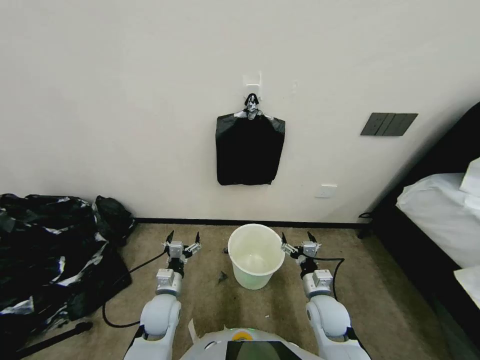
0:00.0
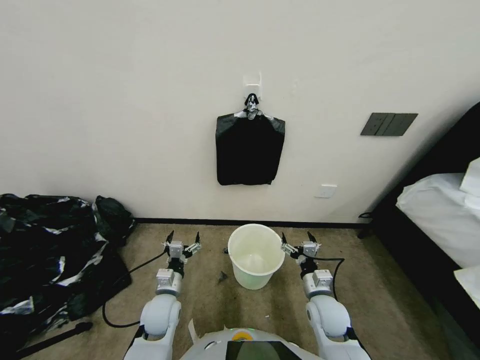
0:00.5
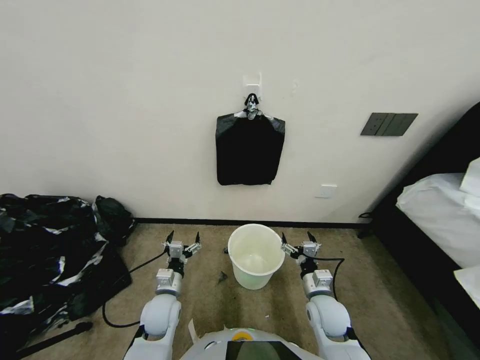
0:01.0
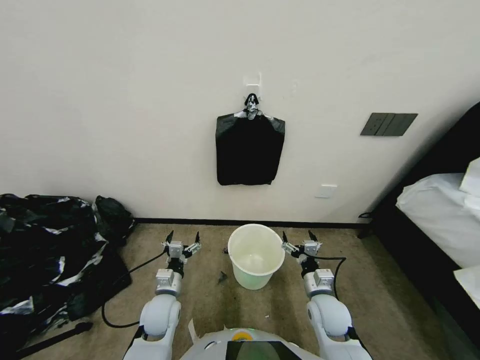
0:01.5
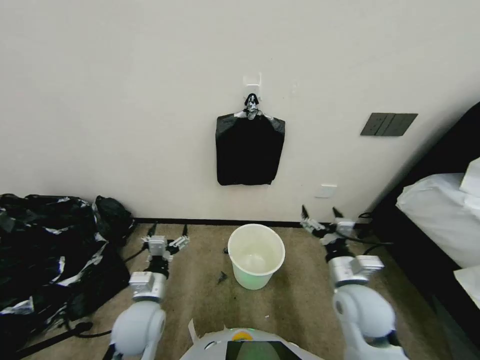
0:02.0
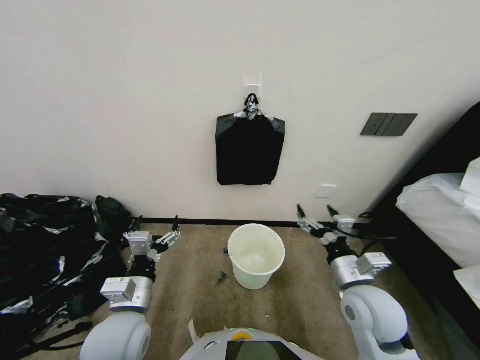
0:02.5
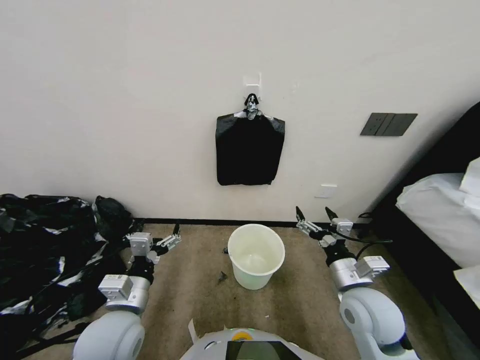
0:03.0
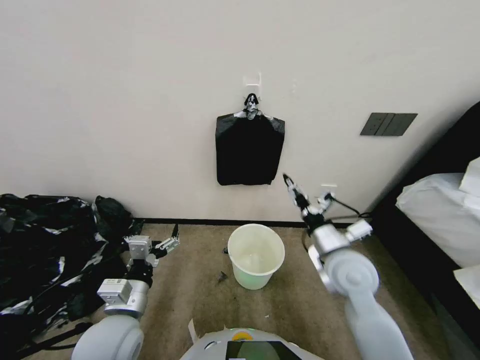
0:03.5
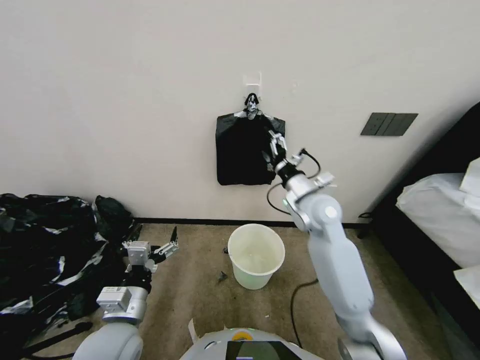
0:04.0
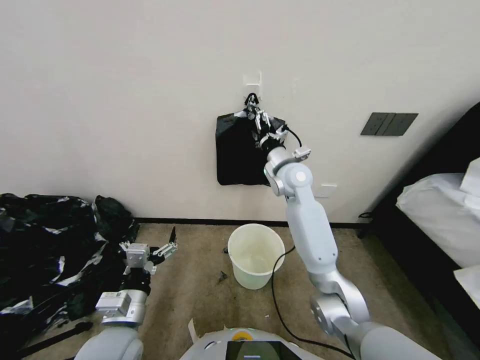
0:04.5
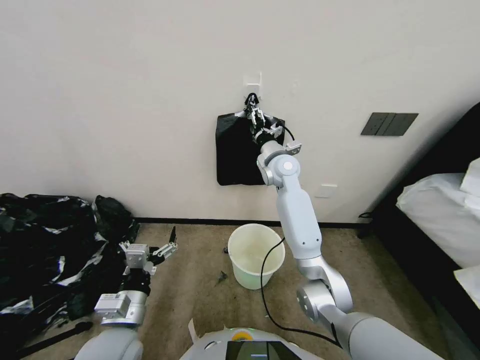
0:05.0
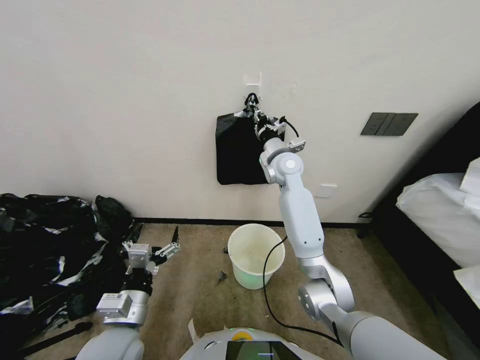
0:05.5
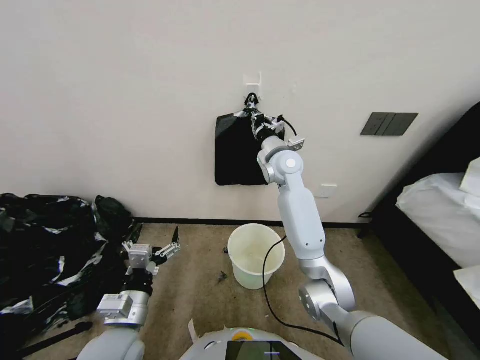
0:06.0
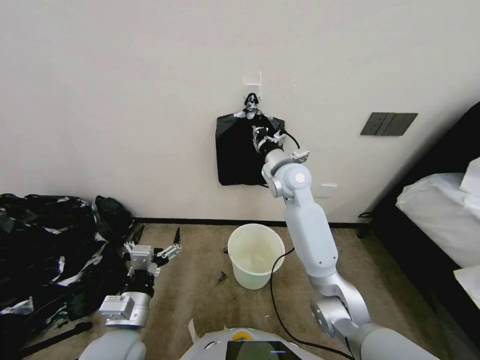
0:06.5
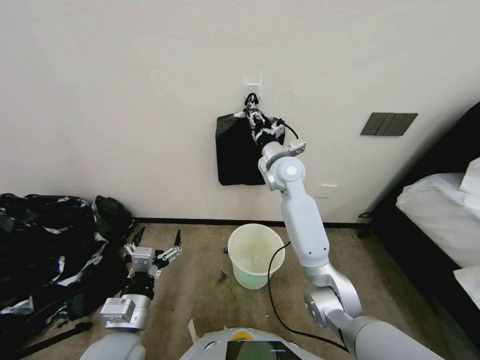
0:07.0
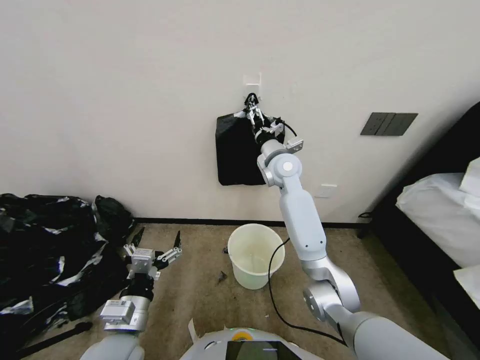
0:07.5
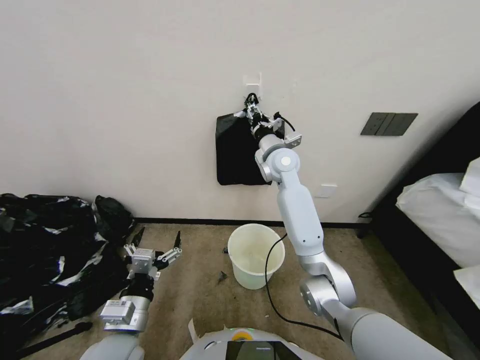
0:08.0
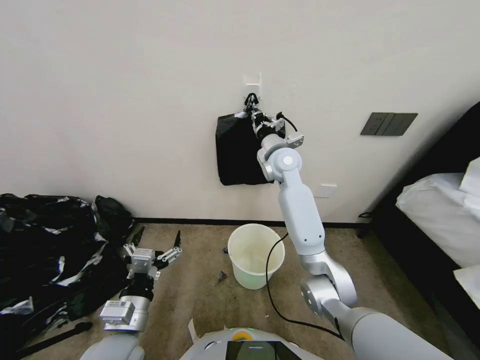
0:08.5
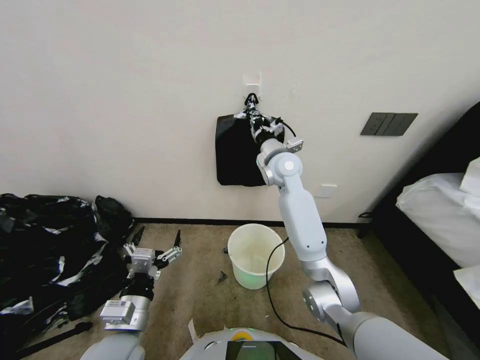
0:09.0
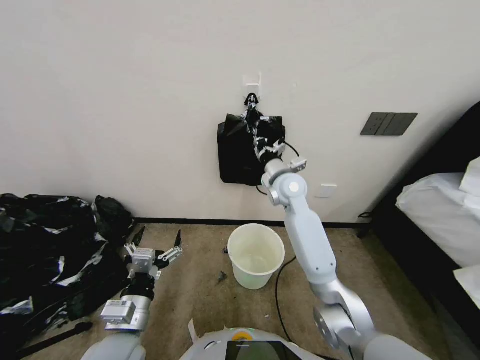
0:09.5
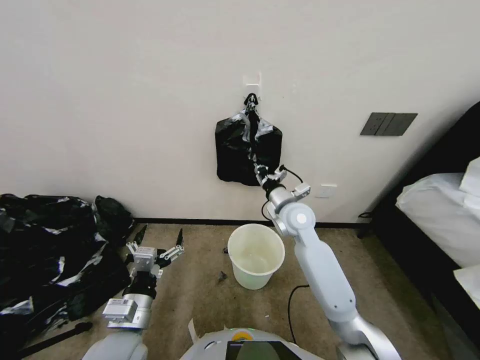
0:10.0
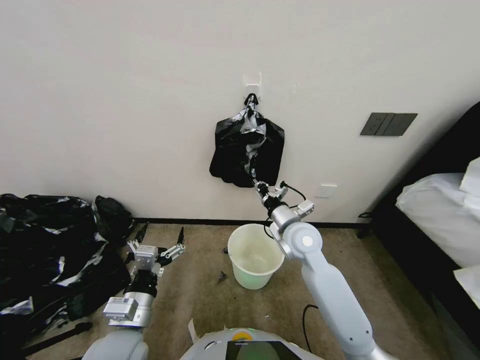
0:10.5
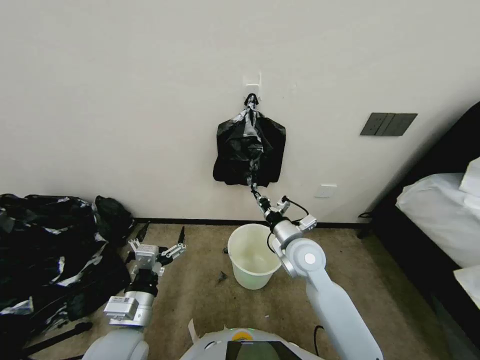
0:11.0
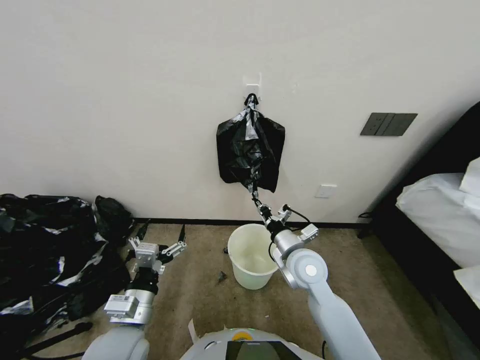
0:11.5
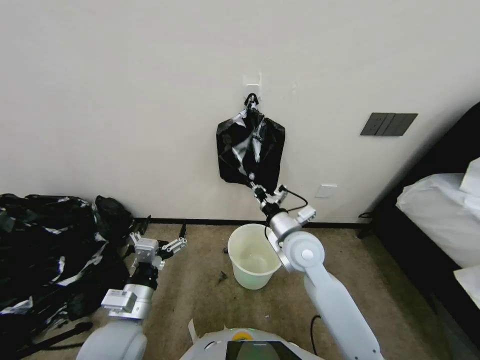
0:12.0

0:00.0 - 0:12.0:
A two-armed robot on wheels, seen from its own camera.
Task of the whole recording: Place a trash bag onto the trash bin.
0:02.0 - 0:04.0: The left gripper moves upward and backward, some 10 cm. The right gripper goes about 20 cm forward and upward.
0:04.0 - 0:06.0: The right gripper is displaced forward, to the left and upward by some 15 cm, and closes its fingers.
0:06.0 - 0:08.0: The right gripper opens up.
0:08.0 - 0:10.0: The right gripper goes about 15 cm backward and downward, and closes its fingers.
0:10.0 - 0:12.0: The right gripper travels backward by approximately 10 cm.

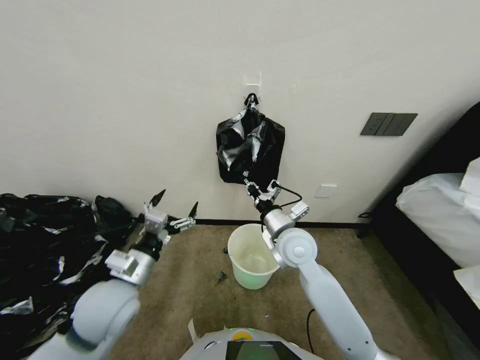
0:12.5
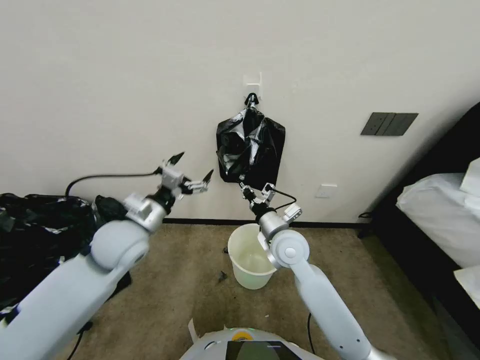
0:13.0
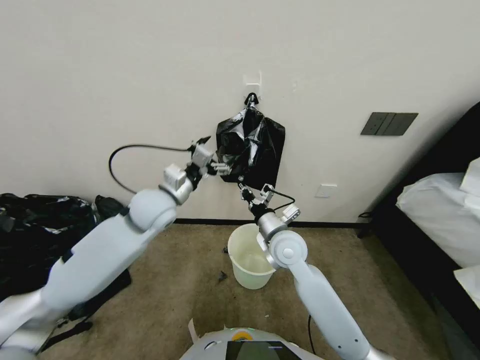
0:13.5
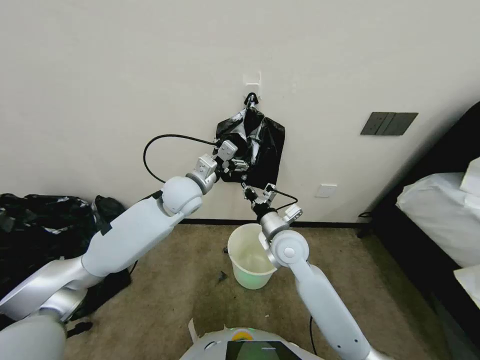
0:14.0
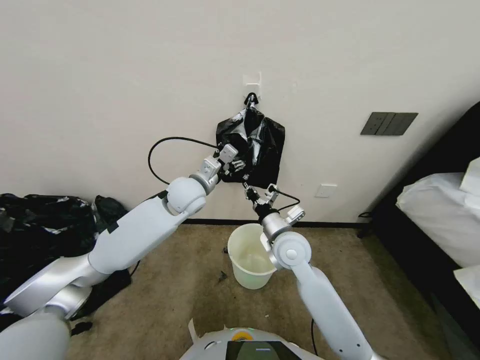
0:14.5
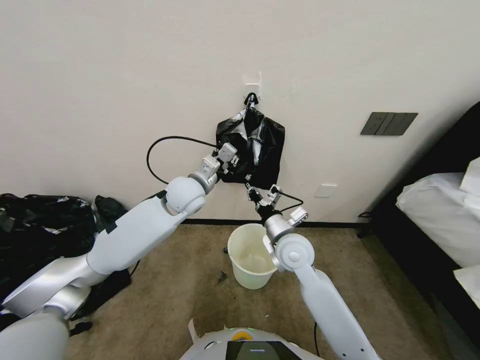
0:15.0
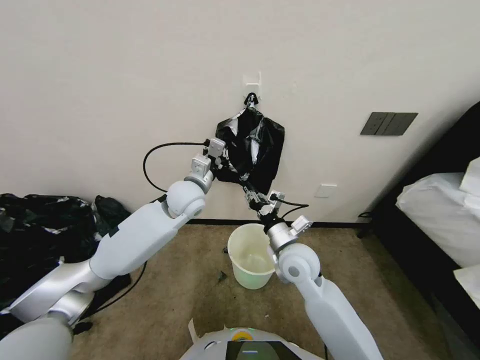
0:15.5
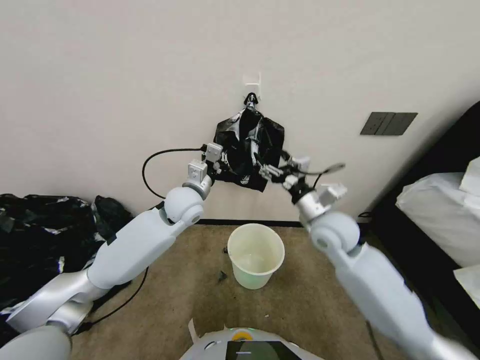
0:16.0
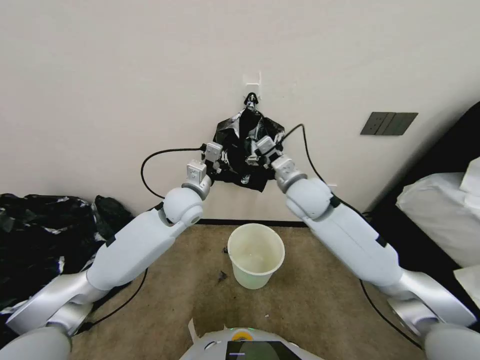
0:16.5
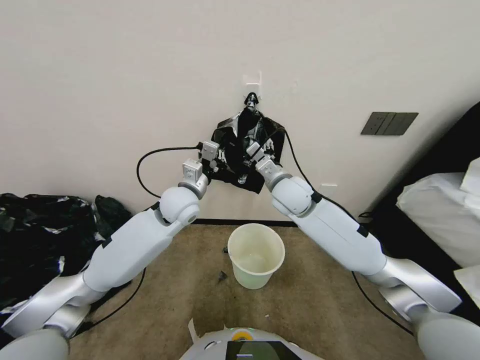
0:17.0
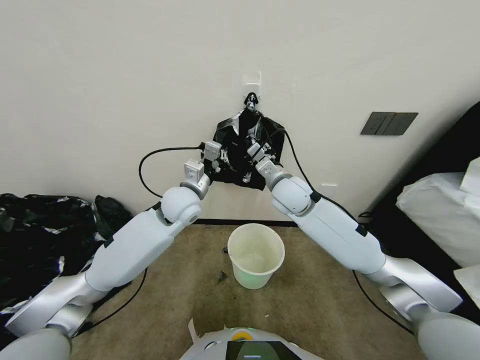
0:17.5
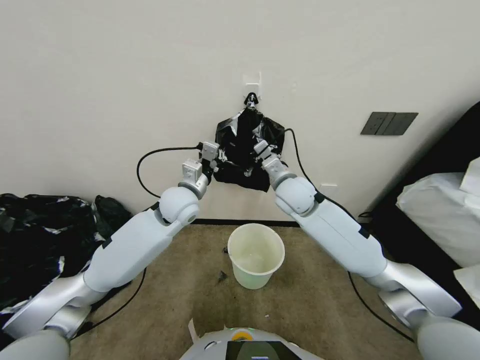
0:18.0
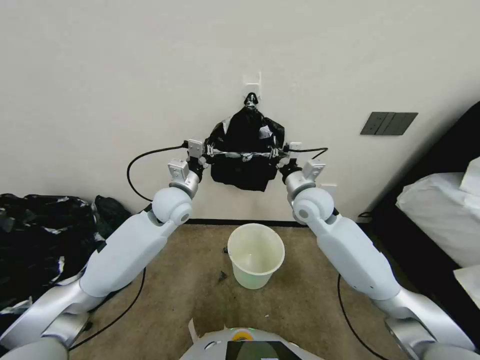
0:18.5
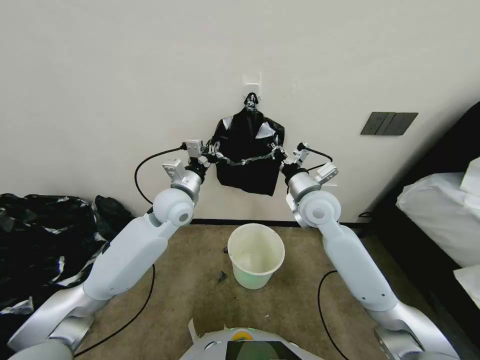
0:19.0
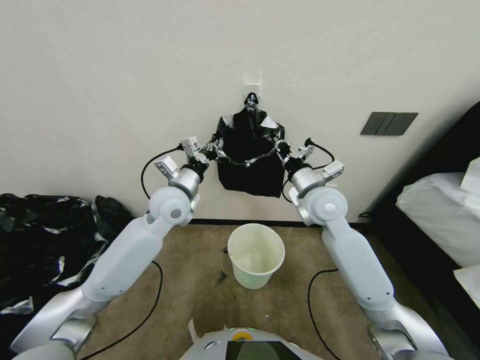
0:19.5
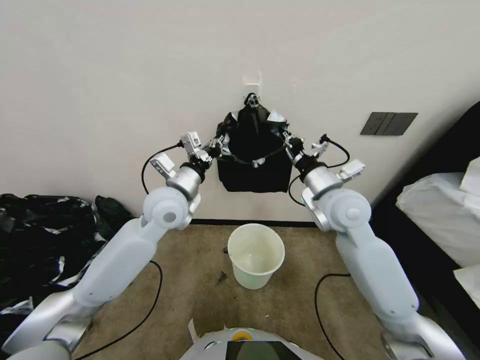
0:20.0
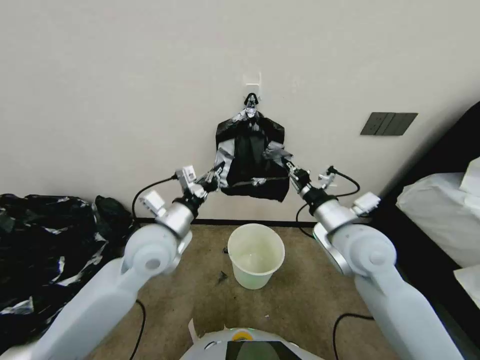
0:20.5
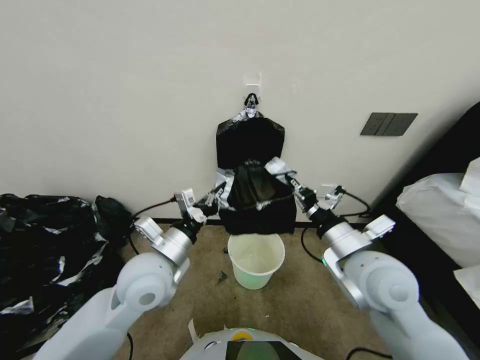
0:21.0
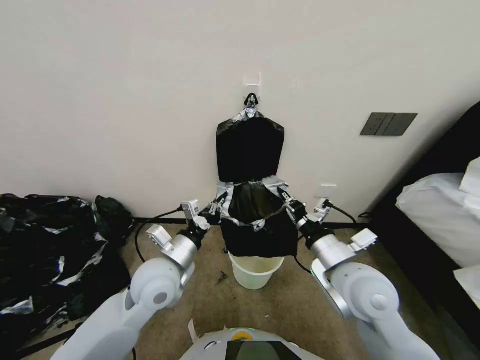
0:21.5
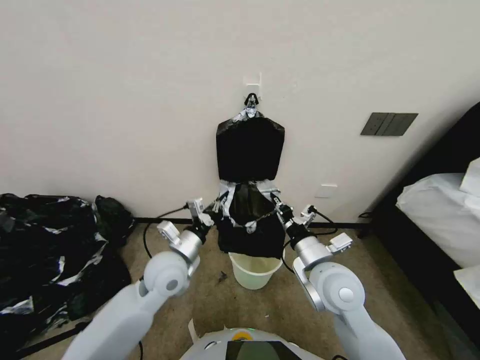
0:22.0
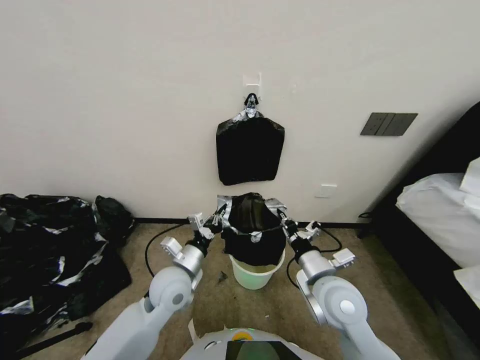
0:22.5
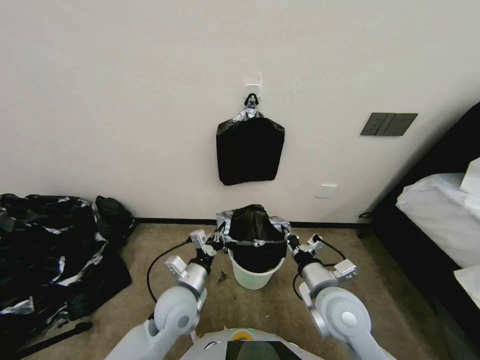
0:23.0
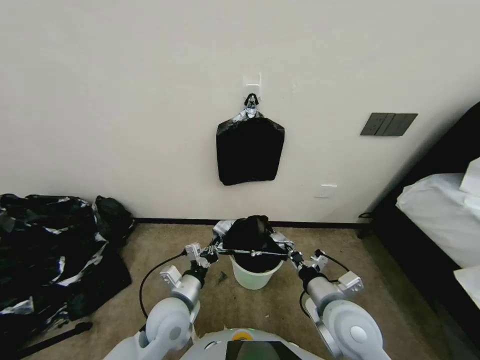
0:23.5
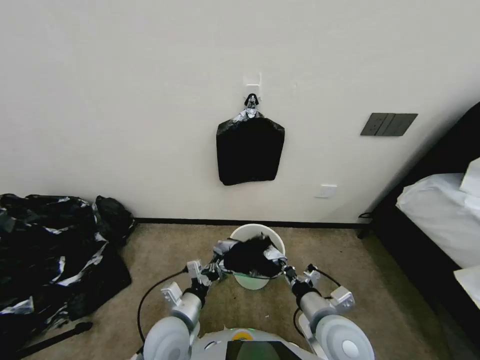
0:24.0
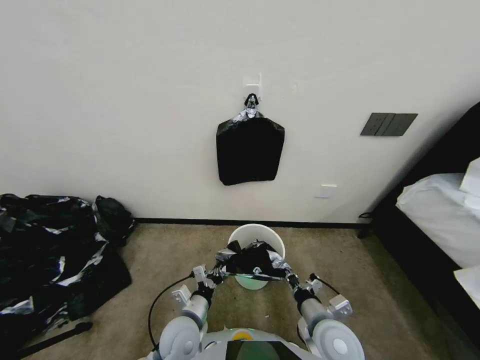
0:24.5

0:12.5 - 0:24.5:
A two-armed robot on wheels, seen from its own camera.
Task of the whole recording: Place a trash bag onto the trash bin.
0:12.5 - 0:14.5: The left gripper heads forward and to the right, covering about 25 cm.
0:14.5 - 0:16.5: The left gripper closes up. Meanwhile the right gripper is displaced upward and forward by approximately 15 cm, and opens.
0:16.5 - 0:18.5: The right gripper closes its fingers.
0:18.5 - 0:20.5: The right gripper travels backward and to the right by approximately 15 cm, while the left gripper is displaced backward by about 10 cm.
0:20.5 - 0:22.5: Both grippers travel together downward and backward, about 15 cm.
0:22.5 - 0:24.5: Both grippers travel together downward and backward, roughly 10 cm.

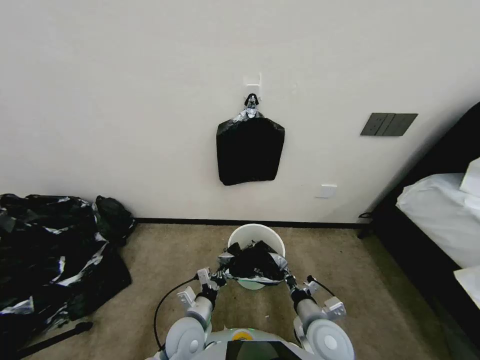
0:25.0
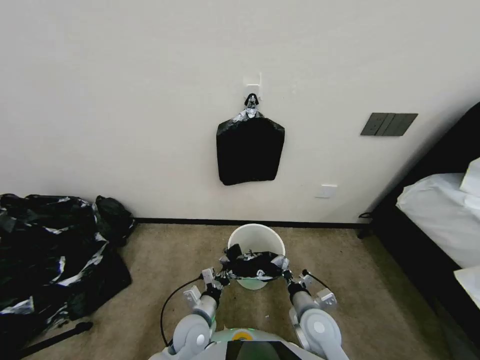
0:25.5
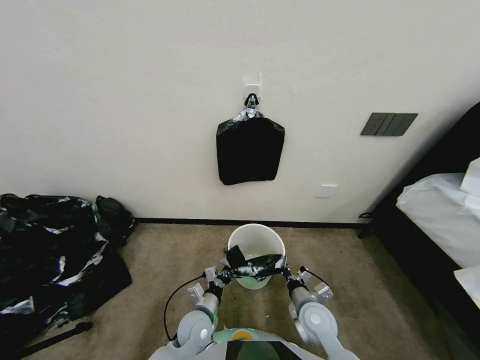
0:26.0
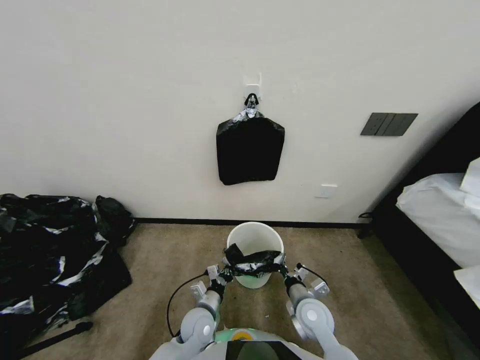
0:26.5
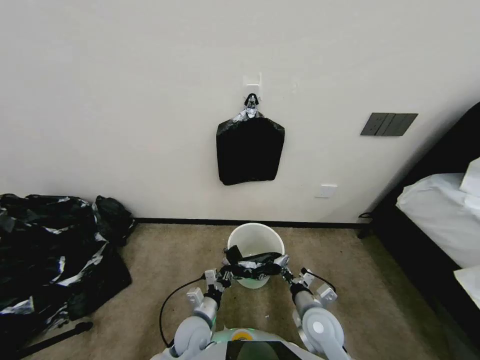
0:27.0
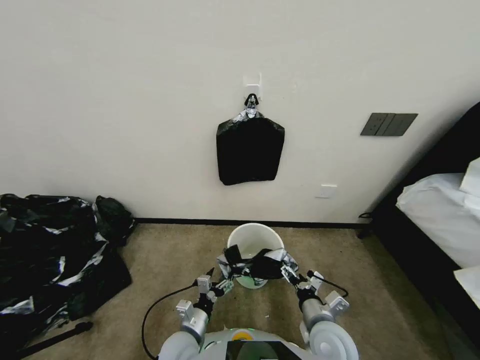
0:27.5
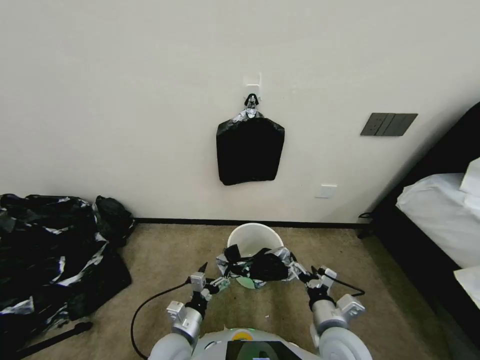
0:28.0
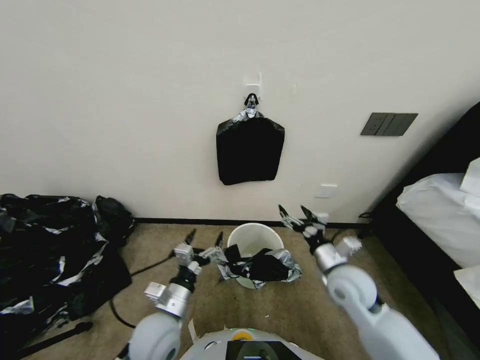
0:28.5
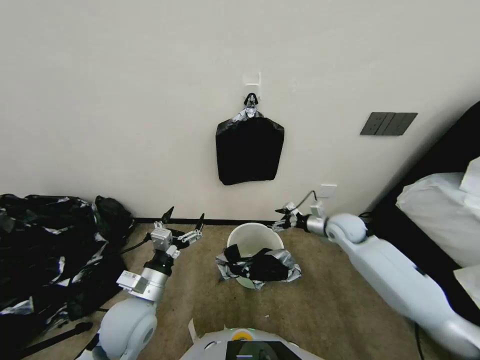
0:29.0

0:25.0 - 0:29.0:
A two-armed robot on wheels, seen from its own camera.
Task of the whole recording: Place a trash bag onto the trash bin.
0:25.0 - 0:27.0: The right gripper shifts by some 5 cm.
0:27.0 - 0:29.0: The right gripper is displaced forward, upward and to the right by roughly 25 cm, and opens up. The left gripper goes about 20 cm upward and to the left, and opens.
